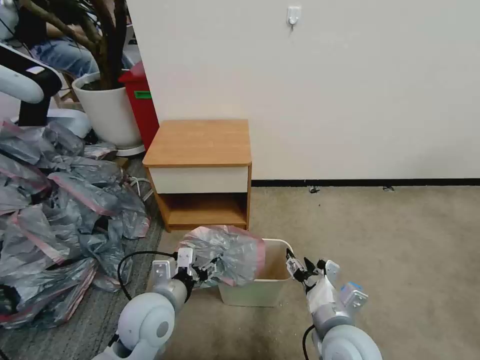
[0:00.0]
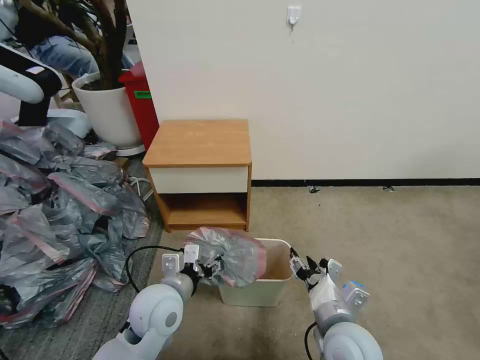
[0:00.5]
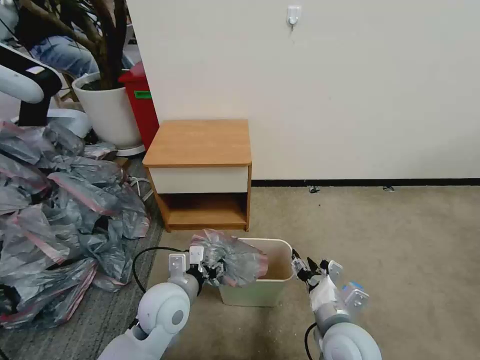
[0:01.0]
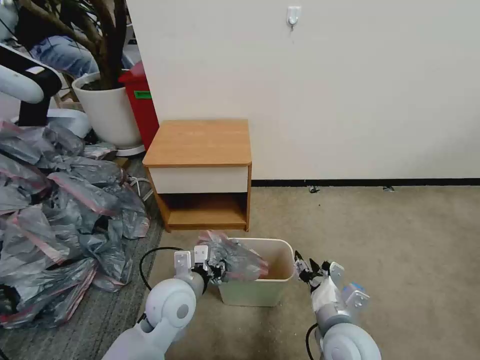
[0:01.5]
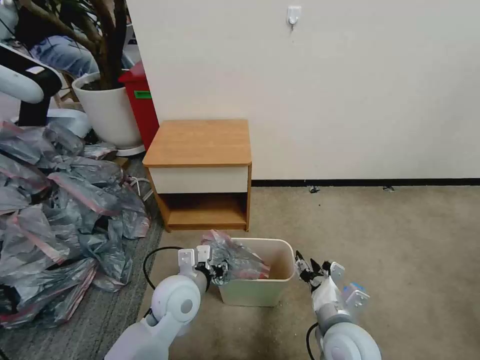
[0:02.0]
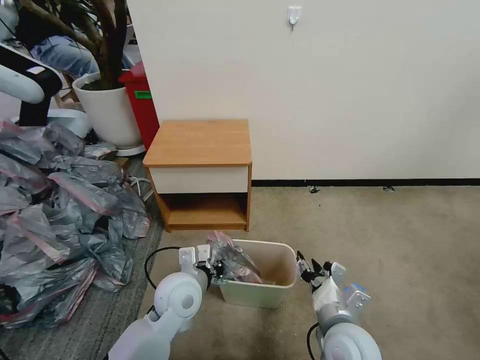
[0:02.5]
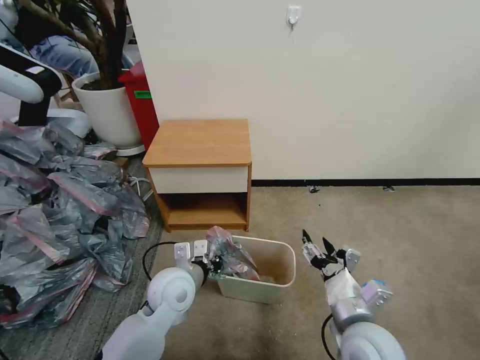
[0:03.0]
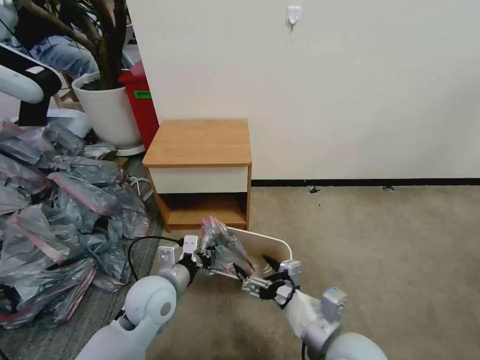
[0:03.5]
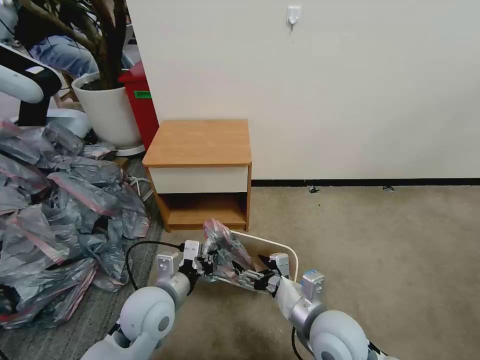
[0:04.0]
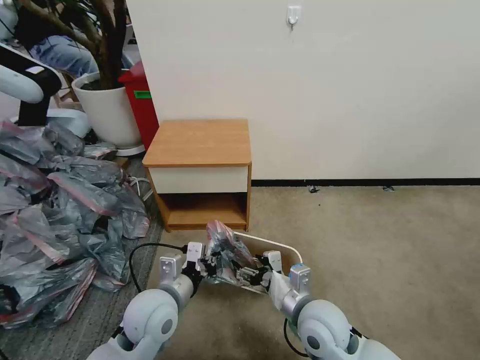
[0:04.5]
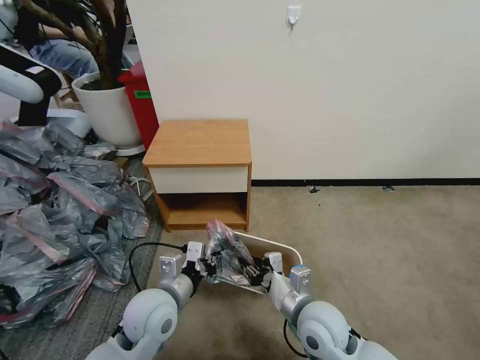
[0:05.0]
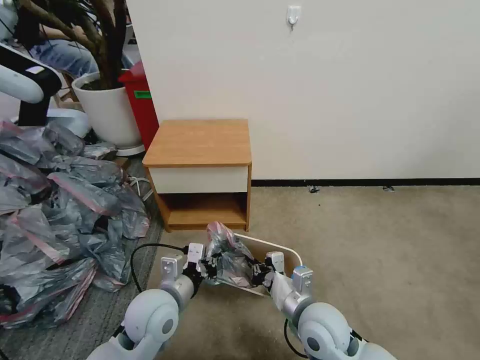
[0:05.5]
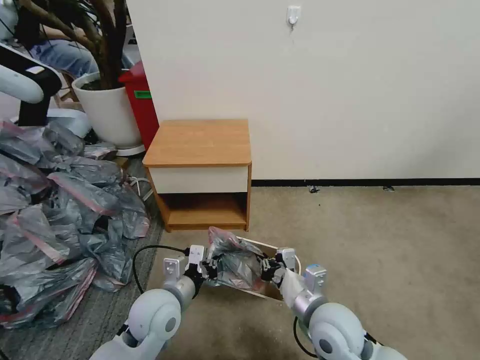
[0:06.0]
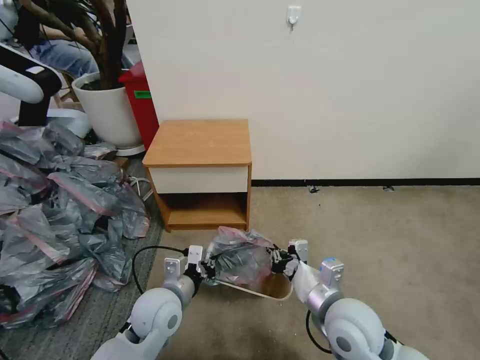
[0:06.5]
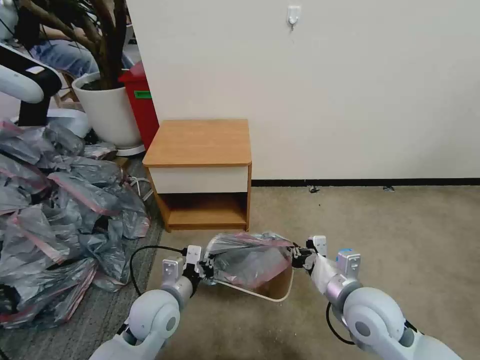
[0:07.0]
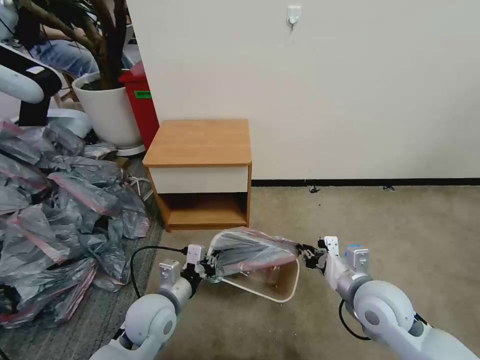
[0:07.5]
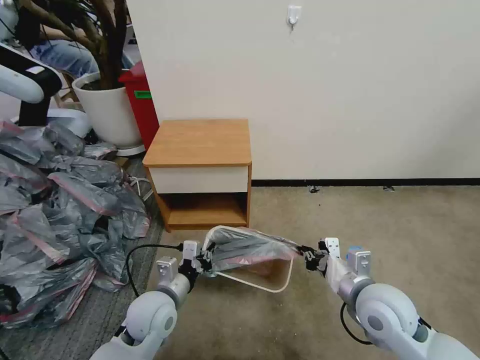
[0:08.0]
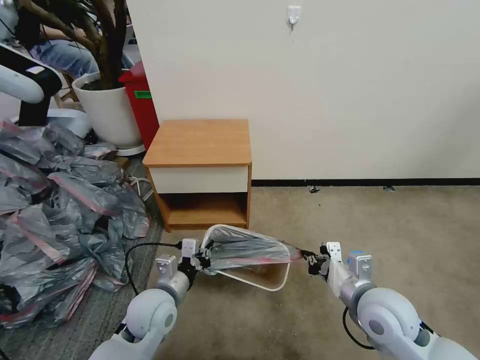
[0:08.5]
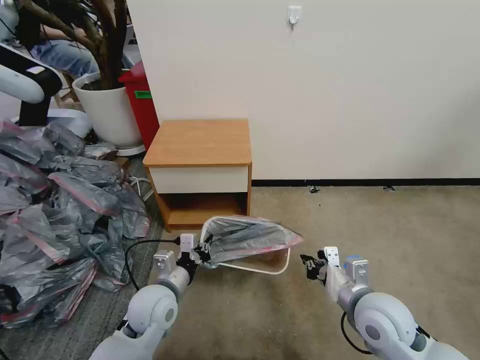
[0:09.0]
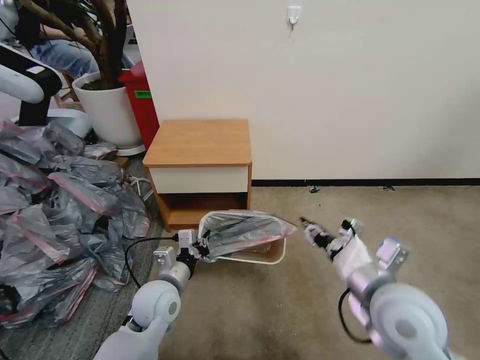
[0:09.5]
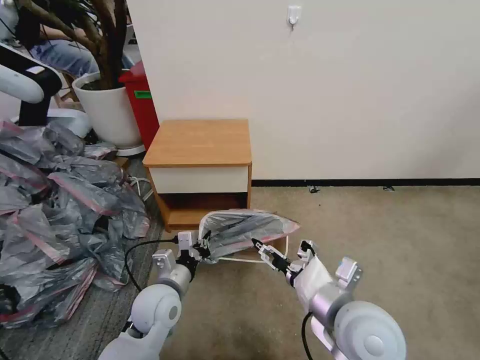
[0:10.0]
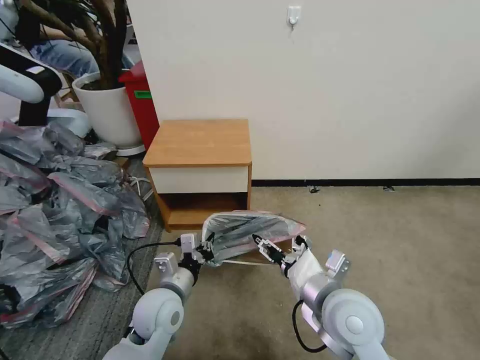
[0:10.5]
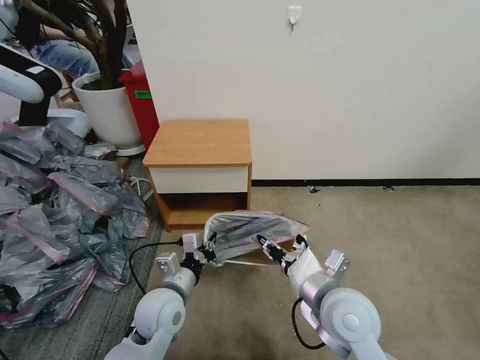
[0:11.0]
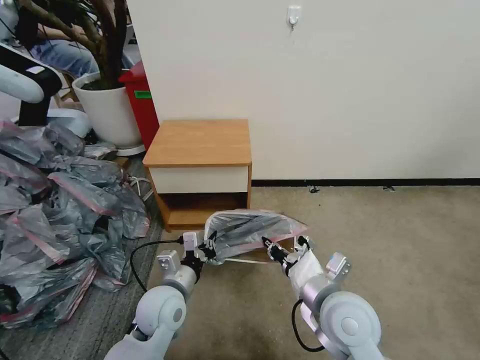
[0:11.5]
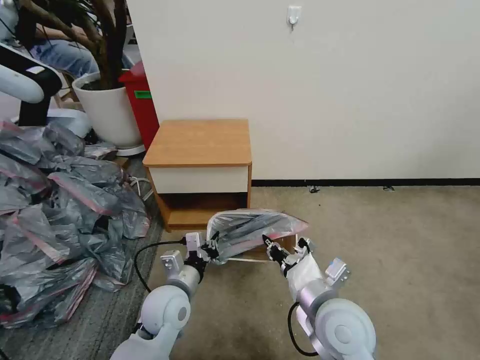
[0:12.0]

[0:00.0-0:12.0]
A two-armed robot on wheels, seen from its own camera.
Task of the whole recording: Pick up the garbage bag from the table and place it over the trash can.
0.0 to 2.0 s: The left gripper shifts by roughly 5 cm.
2.0 to 4.0 s: The left gripper ends up some 5 cm from where it was, and closes up; the right gripper opens.
4.0 to 6.0 s: The right gripper closes.
6.0 to 8.0 s: The right gripper moves to the right, roughly 10 cm.
8.0 to 10.0 s: The right gripper shifts roughly 10 cm to the left and upward, and opens its fingers.
10.0 to 12.0 s: The right gripper closes.

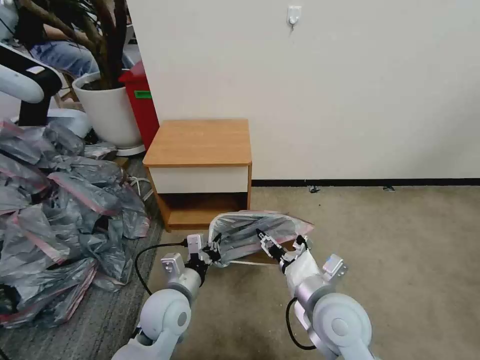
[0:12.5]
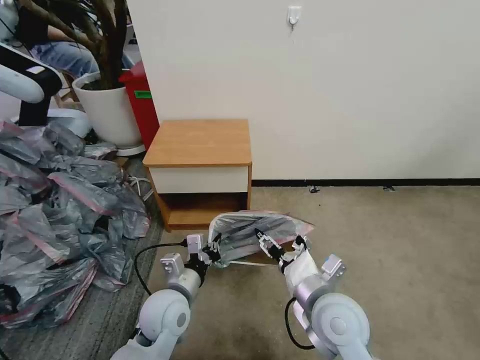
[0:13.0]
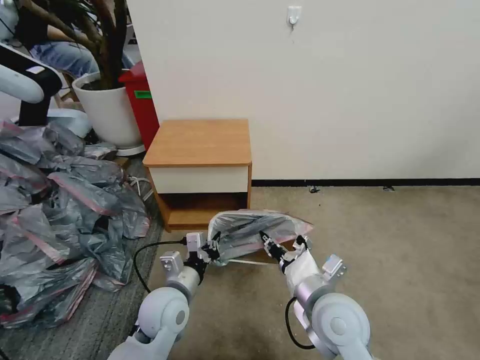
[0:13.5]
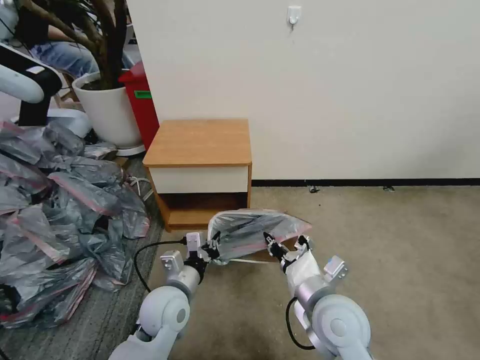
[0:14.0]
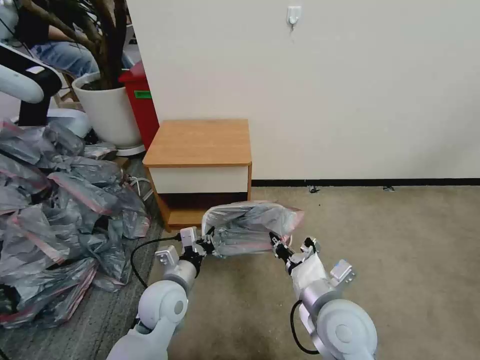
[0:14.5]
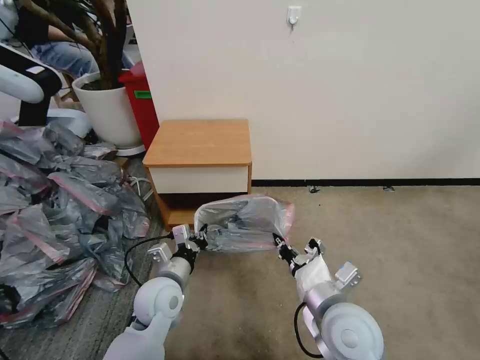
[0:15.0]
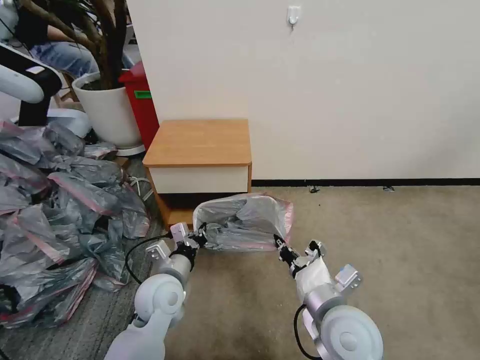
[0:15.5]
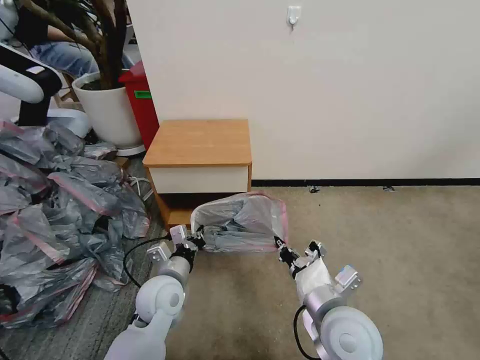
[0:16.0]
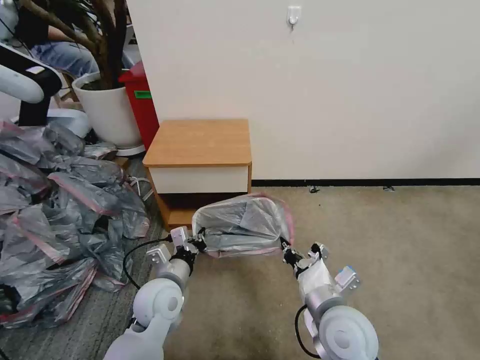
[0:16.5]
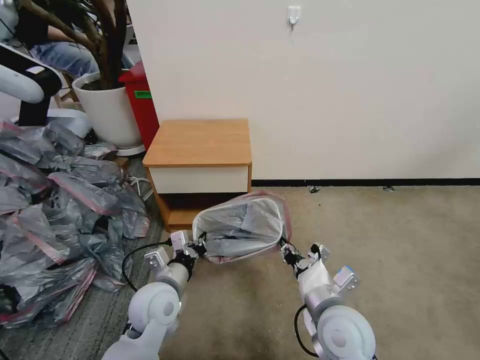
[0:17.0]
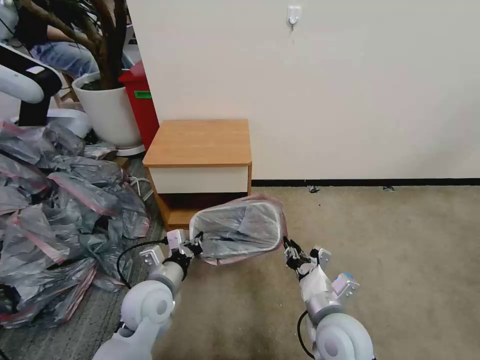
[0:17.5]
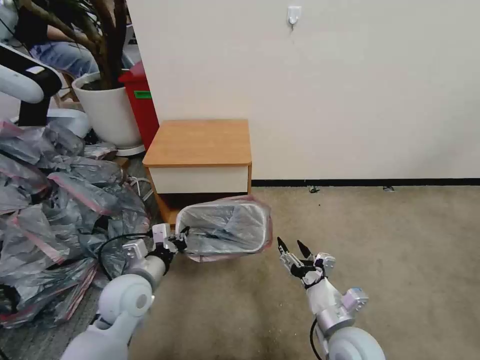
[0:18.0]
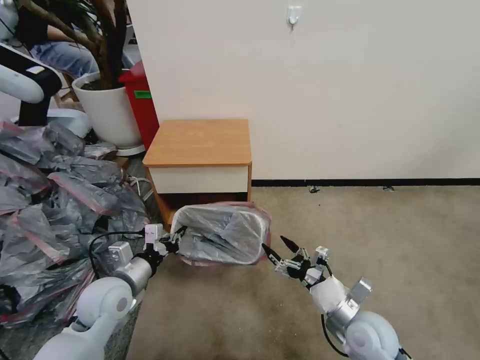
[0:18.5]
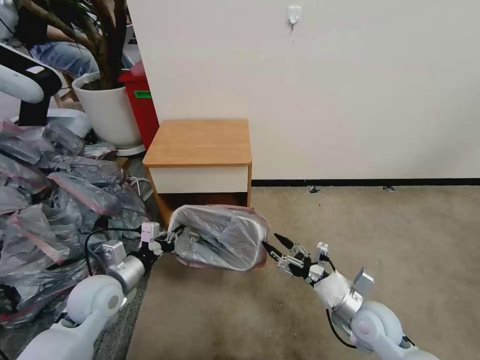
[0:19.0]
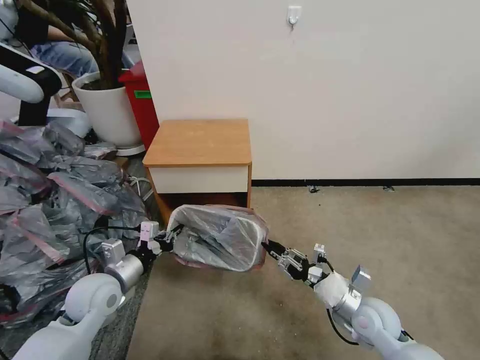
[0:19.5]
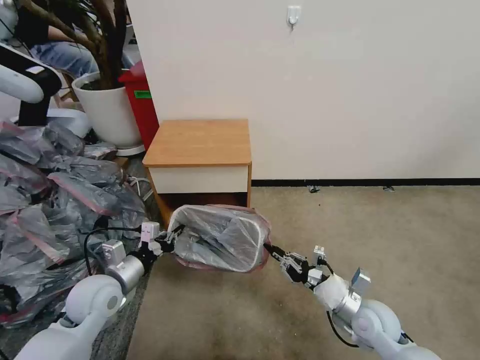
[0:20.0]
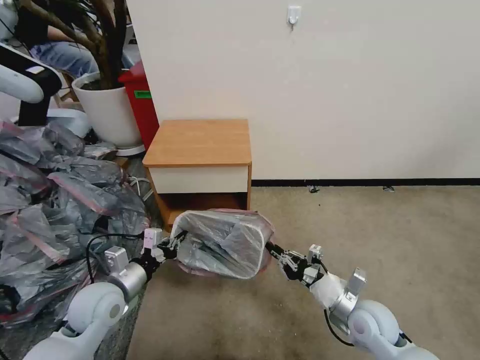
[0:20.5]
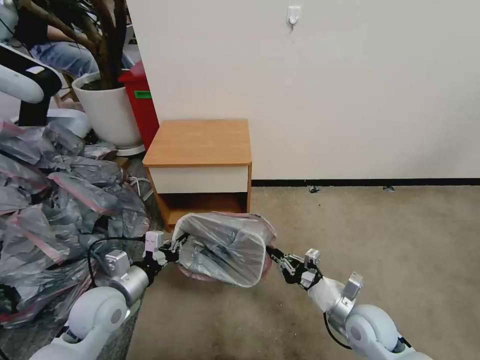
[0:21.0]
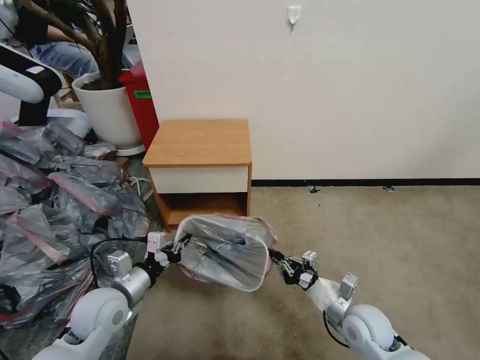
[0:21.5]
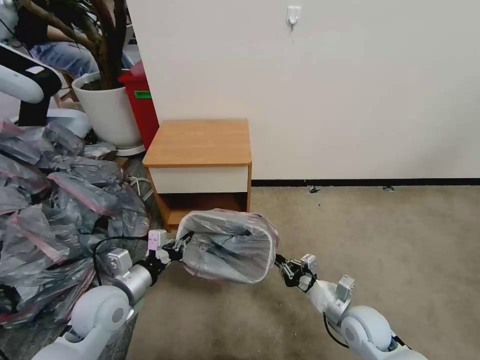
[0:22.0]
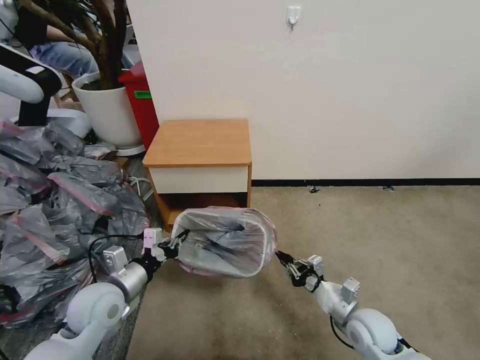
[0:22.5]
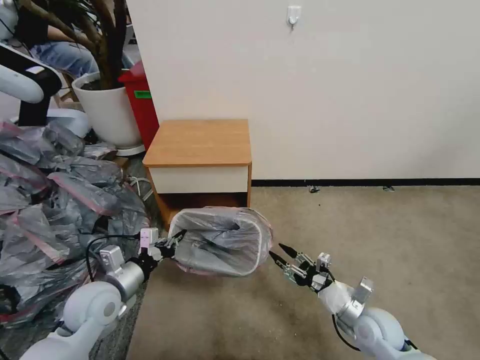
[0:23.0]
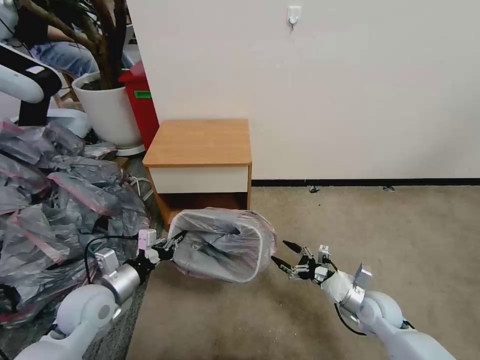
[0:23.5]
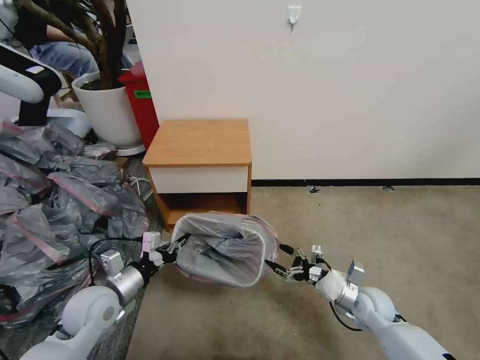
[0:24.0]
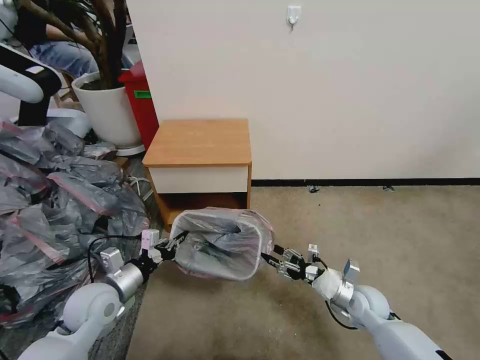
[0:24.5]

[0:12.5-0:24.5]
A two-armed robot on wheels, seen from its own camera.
Task of the whole recording: Pick up the garbage bag from the table and place it over the trash can.
12.5 to 14.5 s: The right gripper closes up.
14.5 to 16.5 s: The grippers stay close to where they were, moving slightly.
16.5 to 18.5 s: The right gripper shifts about 10 cm to the right and downward, and opens up; the left gripper moves to the left, roughly 10 cm.
18.5 to 20.5 s: The right gripper closes up.
22.5 to 24.5 s: The right gripper is displaced forward by about 5 cm, and opens up.

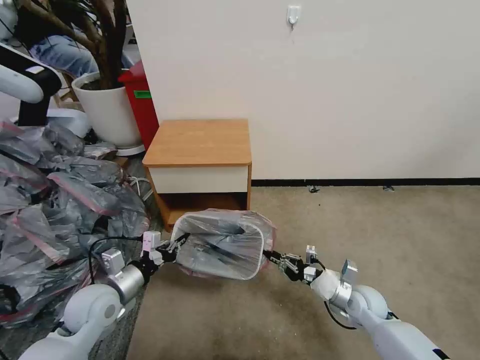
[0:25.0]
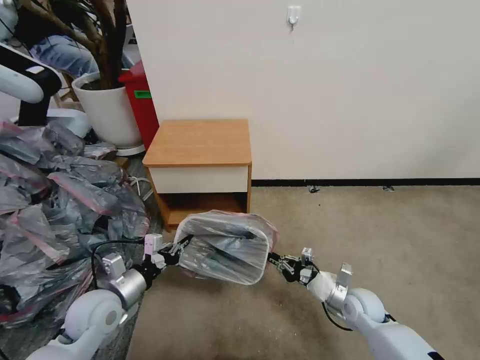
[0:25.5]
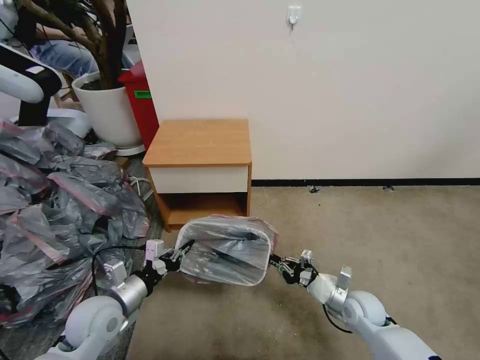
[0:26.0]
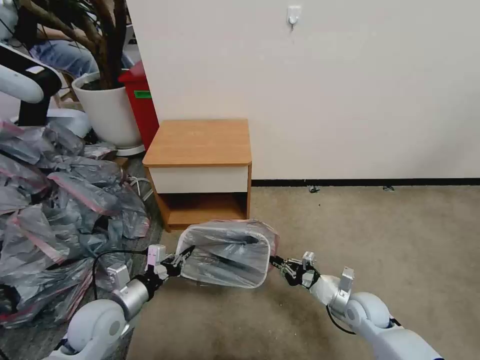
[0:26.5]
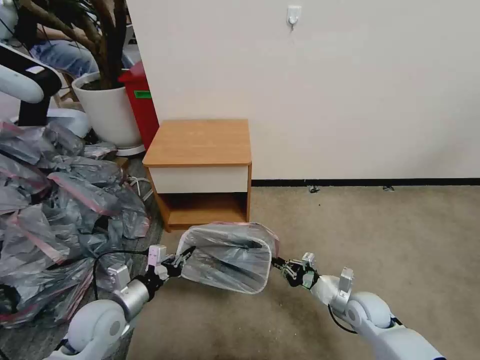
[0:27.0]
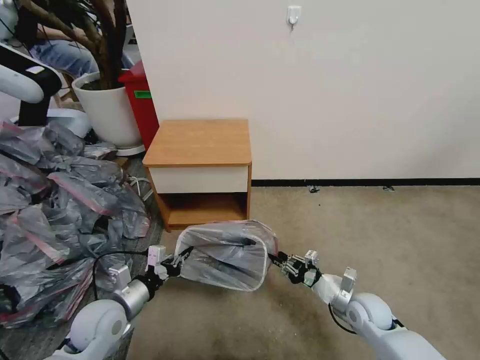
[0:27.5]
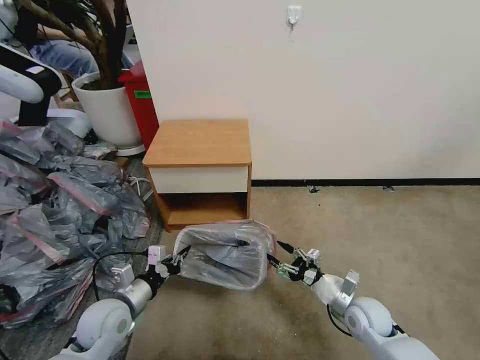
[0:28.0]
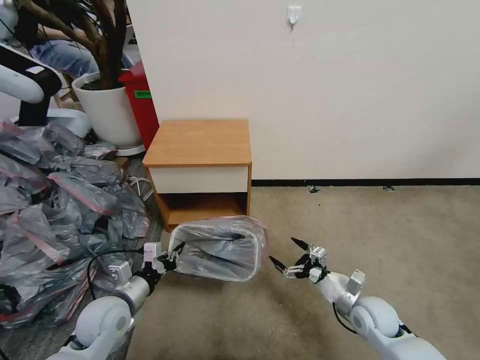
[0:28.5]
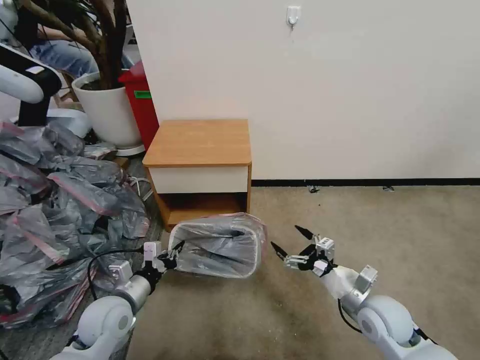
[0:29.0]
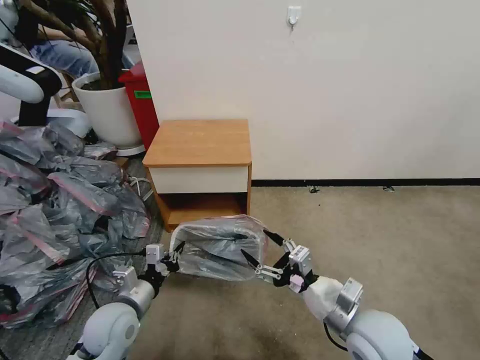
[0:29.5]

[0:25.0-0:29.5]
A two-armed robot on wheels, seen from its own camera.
Task of the whole recording: Pick up the garbage bag from the table and place it over the trash can.
25.0 to 27.0 s: The grippers make only small movements.
27.0 to 29.5 s: The right gripper is displaced upward, to the left and backward by some 20 cm, and opens up.
